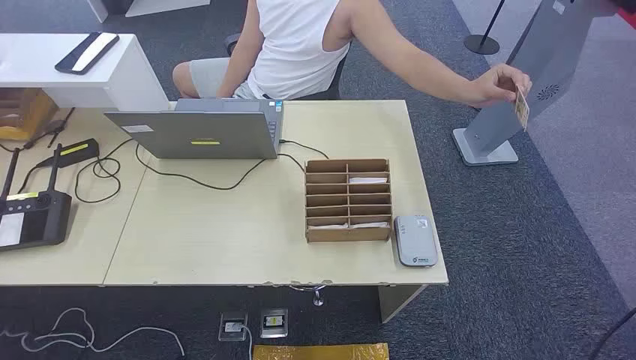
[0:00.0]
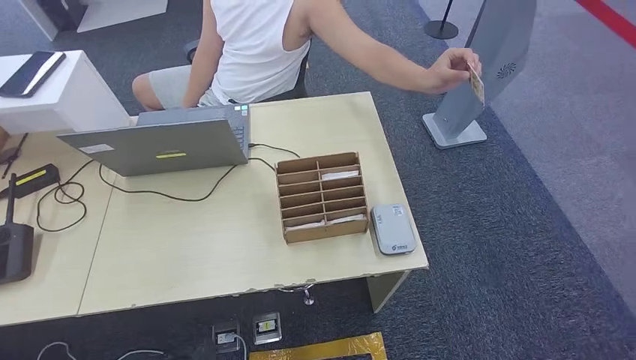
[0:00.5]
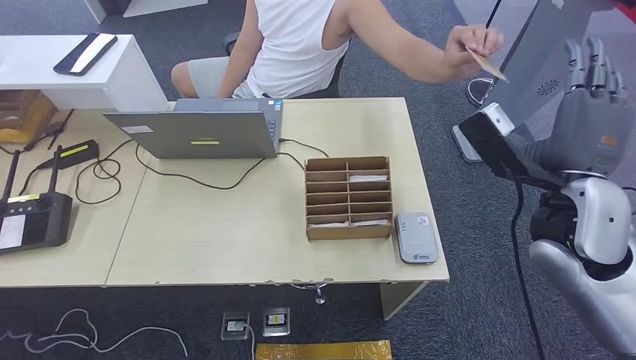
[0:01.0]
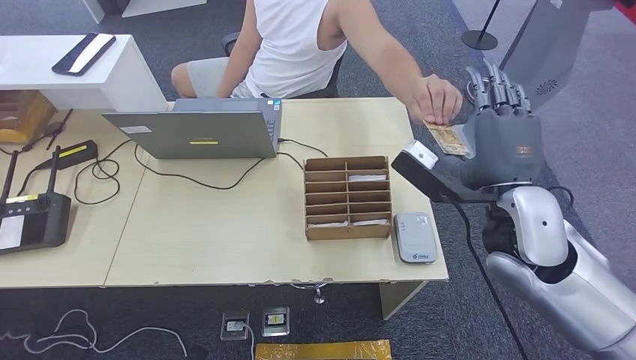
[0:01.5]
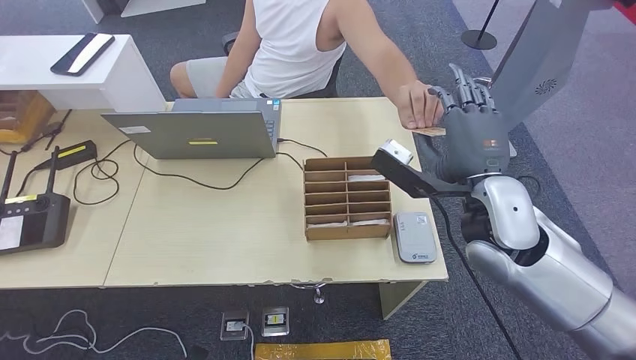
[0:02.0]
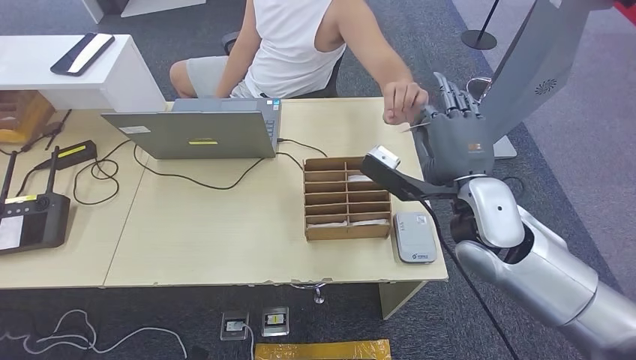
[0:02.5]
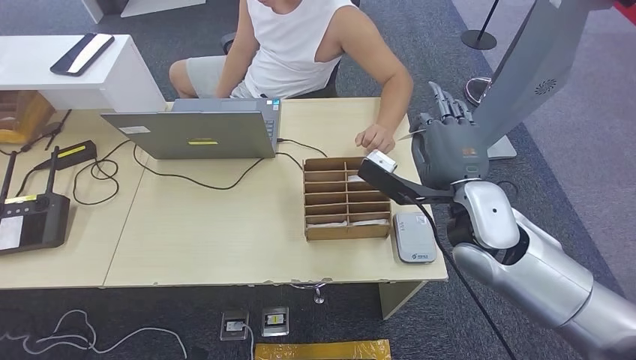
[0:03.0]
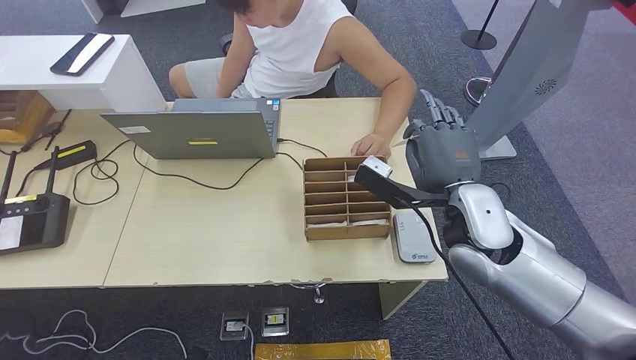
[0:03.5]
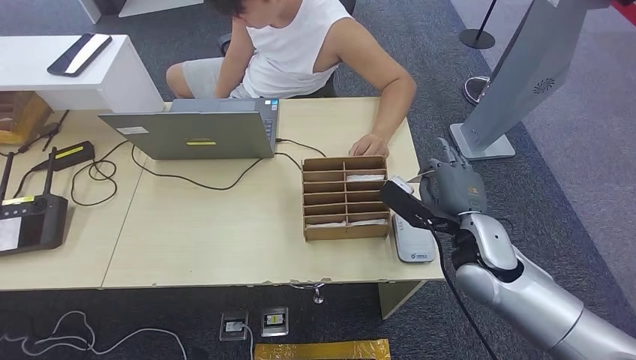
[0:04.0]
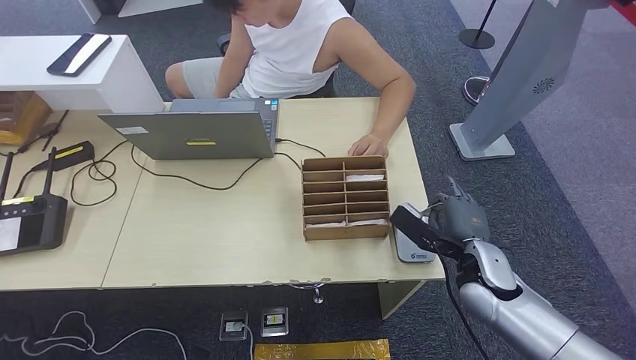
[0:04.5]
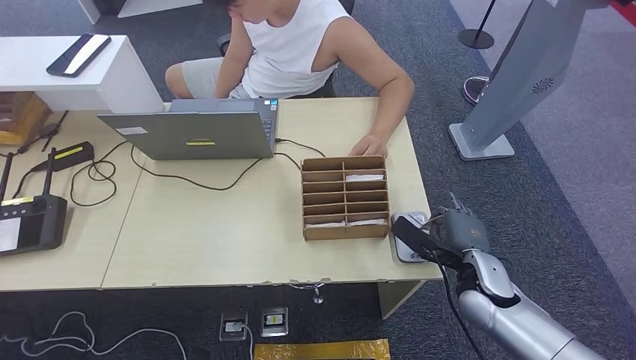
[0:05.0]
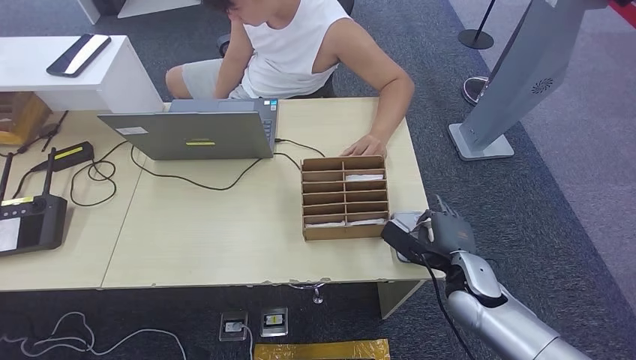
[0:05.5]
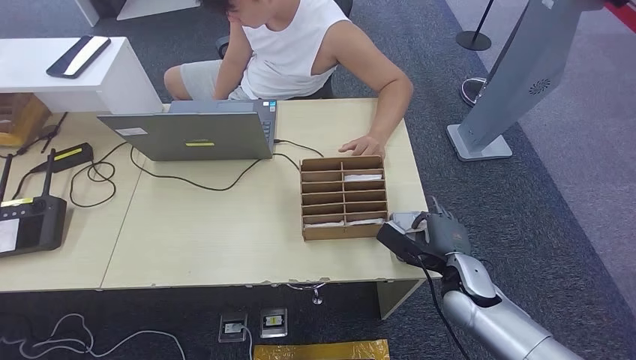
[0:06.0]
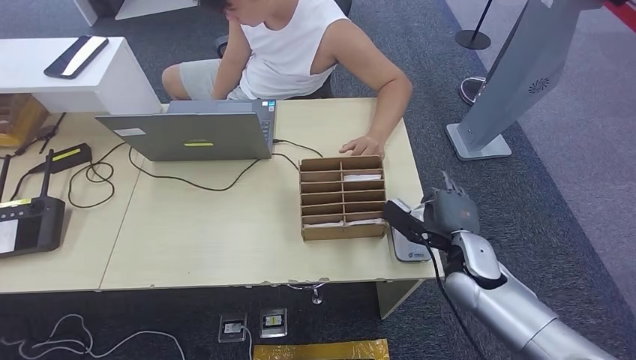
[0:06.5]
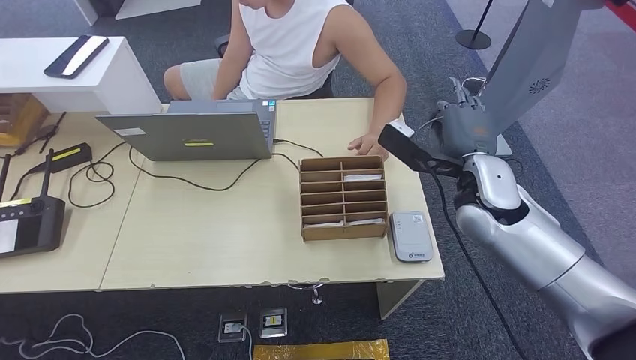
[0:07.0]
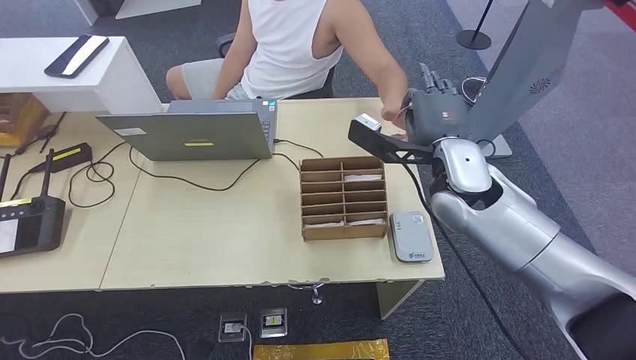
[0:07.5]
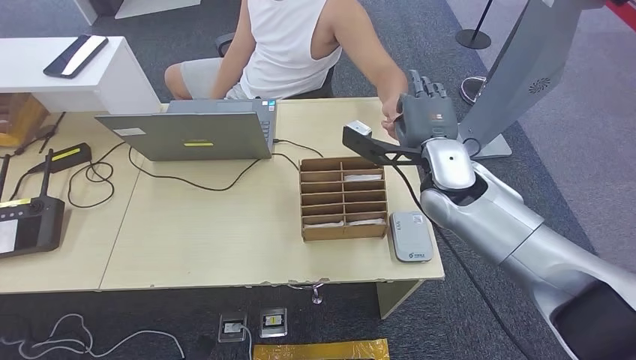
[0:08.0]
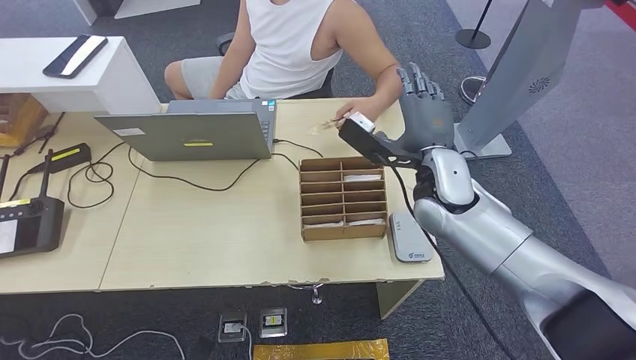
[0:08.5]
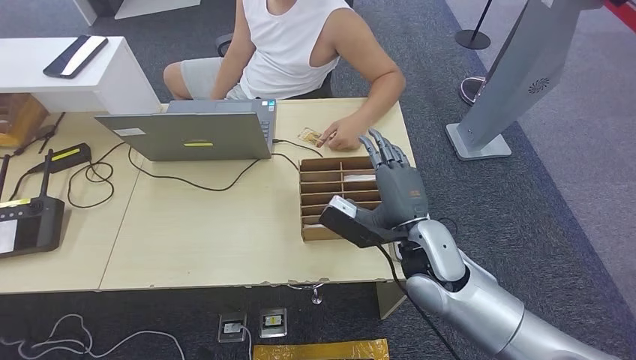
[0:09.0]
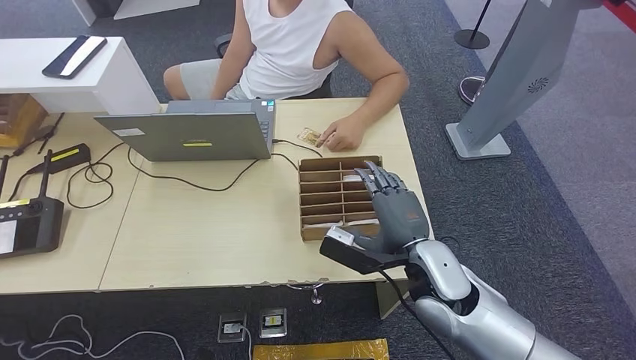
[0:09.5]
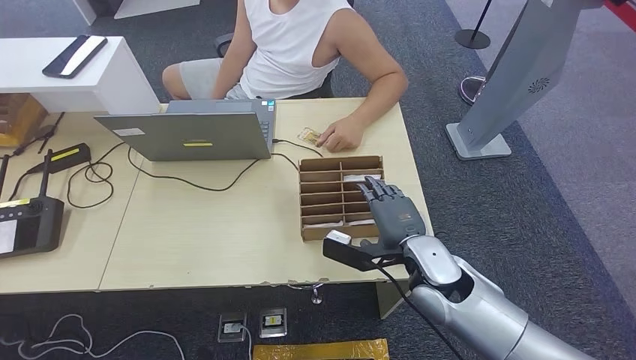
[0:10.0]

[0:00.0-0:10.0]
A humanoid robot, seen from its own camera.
Step, 0:00.0 to 0:03.0: Take the ID card from the person's hand.
Step, 0:03.5 to 0:06.0: Place the ID card on the card reader.
Step, 0:06.5 to 0:08.5: Hand the ID card to the person.
0:04.0 to 0:06.0: The right hand moves downward, roughly 10 cm.
0:08.0 to 0:10.0: The right hand travels downward and backward by roughly 15 cm.

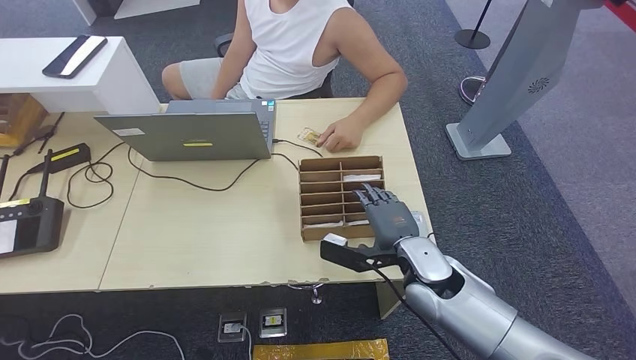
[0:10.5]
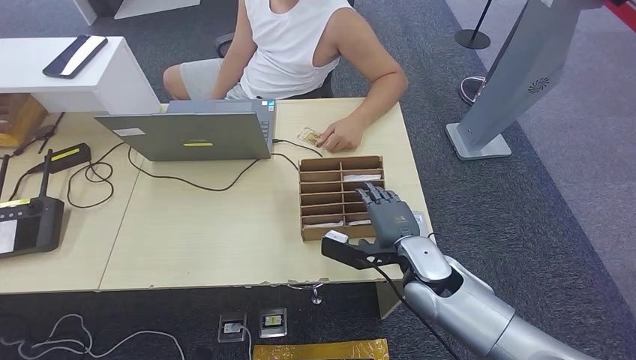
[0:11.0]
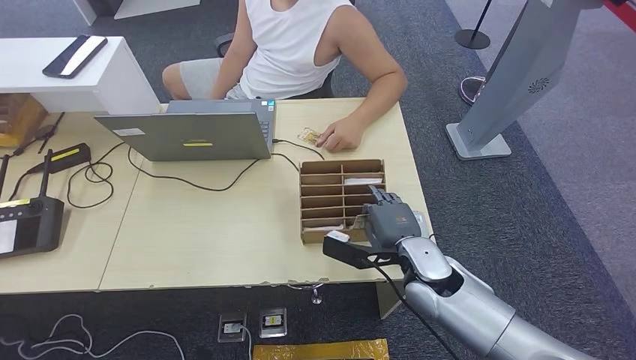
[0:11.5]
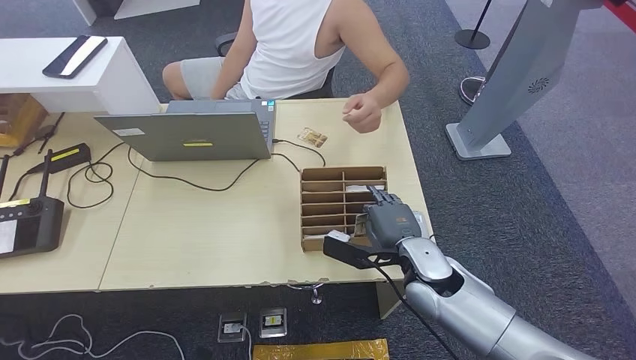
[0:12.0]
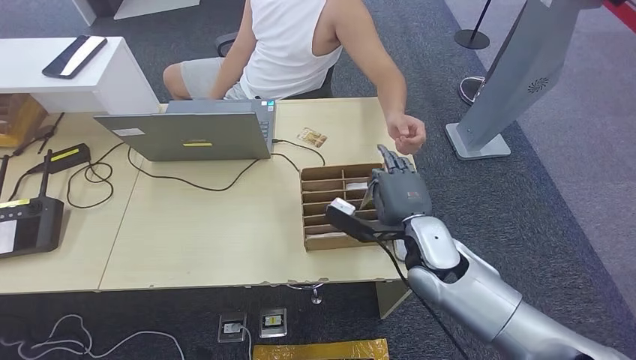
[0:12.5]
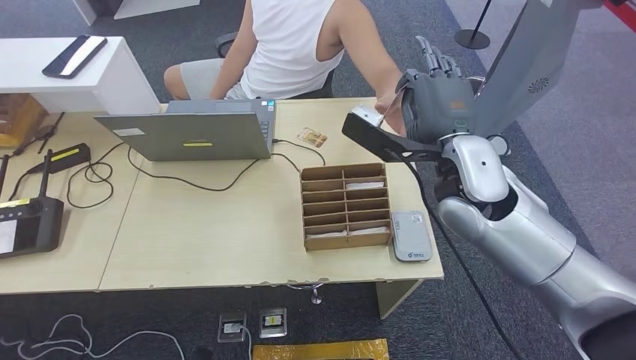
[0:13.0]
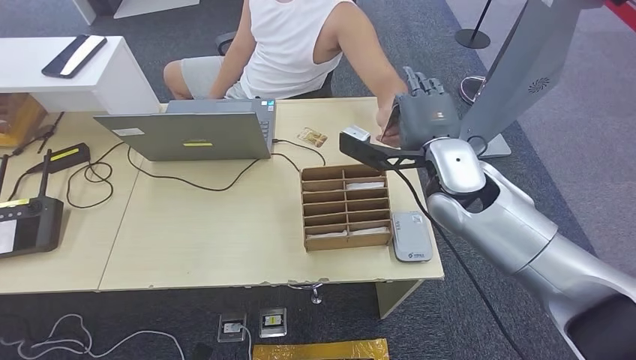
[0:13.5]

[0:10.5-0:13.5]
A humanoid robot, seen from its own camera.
Step, 0:13.0 to 0:13.5: Hand the room key to the person.
0:10.5 to 0:12.0: Neither hand changes place.
0:12.0 to 0:13.5: The right hand is displaced upward and forward by roughly 20 cm.
